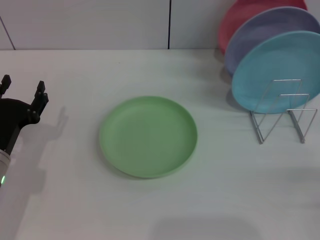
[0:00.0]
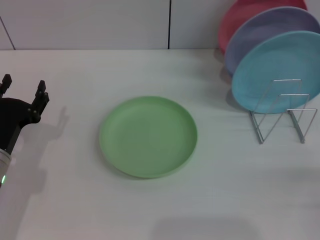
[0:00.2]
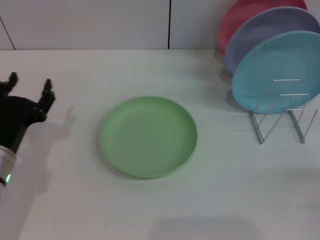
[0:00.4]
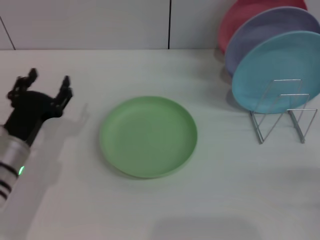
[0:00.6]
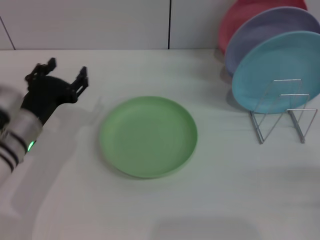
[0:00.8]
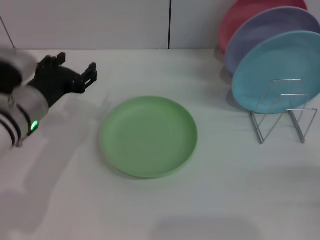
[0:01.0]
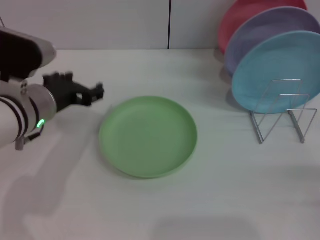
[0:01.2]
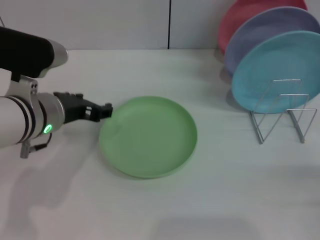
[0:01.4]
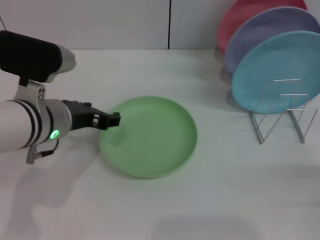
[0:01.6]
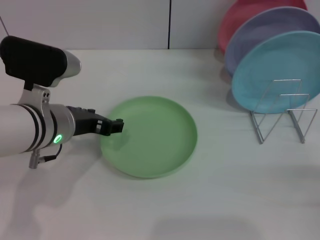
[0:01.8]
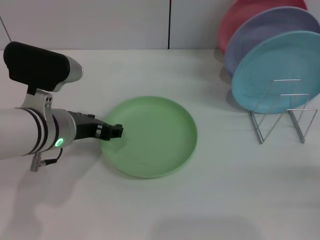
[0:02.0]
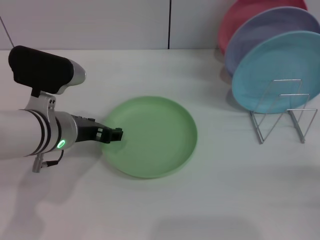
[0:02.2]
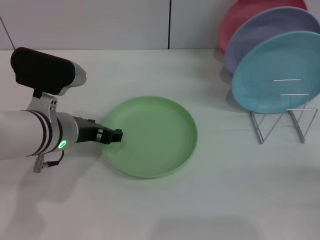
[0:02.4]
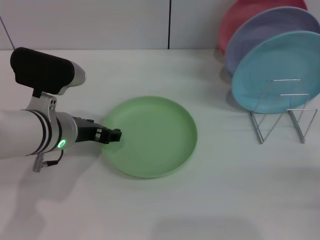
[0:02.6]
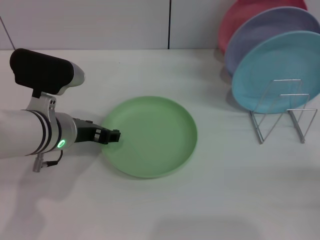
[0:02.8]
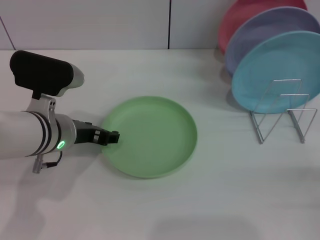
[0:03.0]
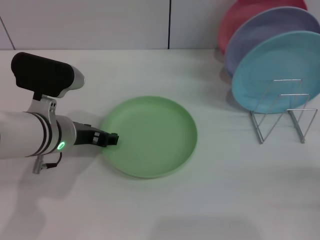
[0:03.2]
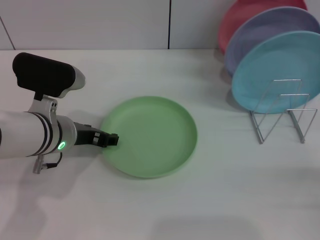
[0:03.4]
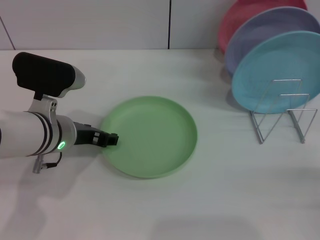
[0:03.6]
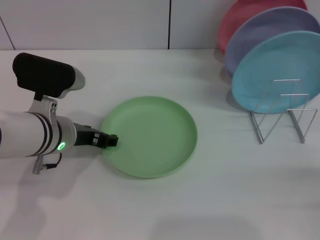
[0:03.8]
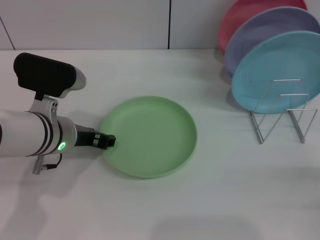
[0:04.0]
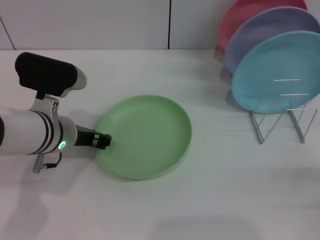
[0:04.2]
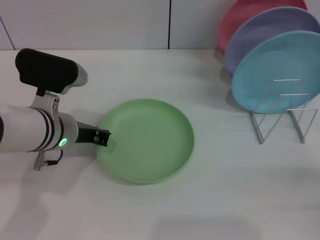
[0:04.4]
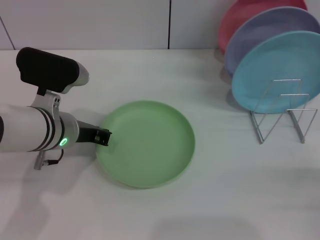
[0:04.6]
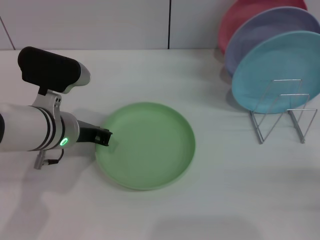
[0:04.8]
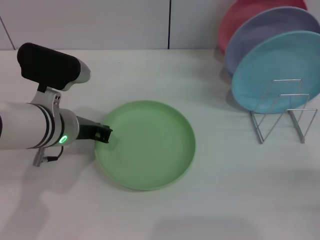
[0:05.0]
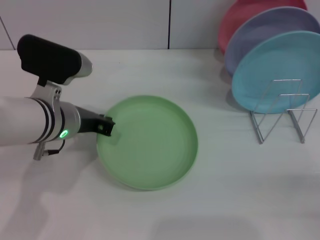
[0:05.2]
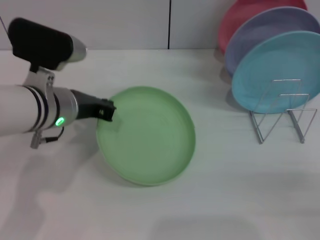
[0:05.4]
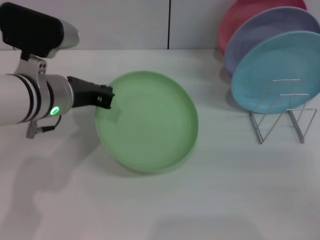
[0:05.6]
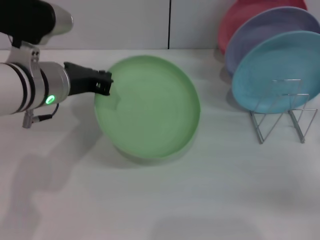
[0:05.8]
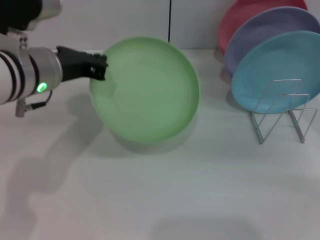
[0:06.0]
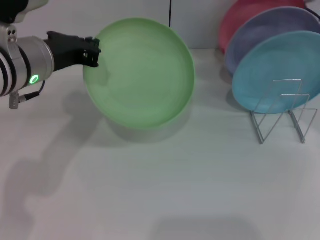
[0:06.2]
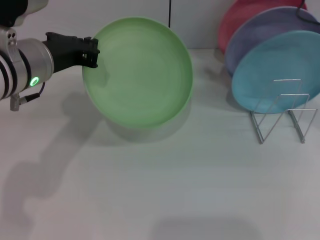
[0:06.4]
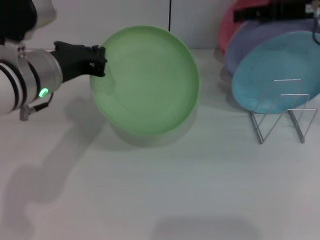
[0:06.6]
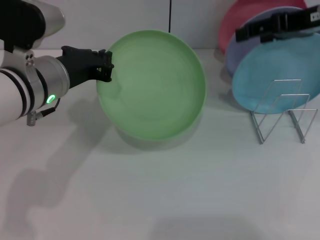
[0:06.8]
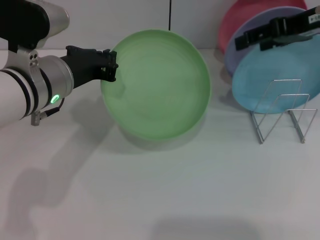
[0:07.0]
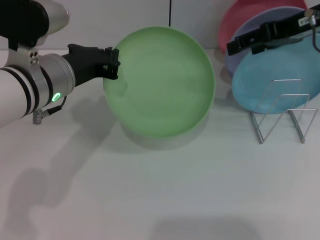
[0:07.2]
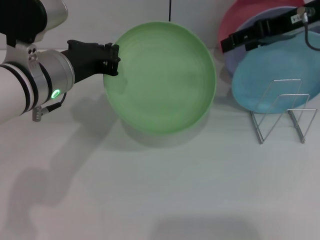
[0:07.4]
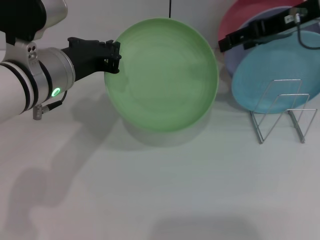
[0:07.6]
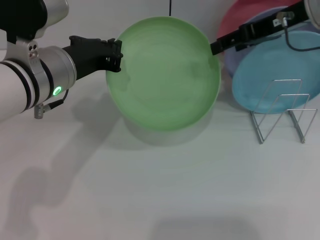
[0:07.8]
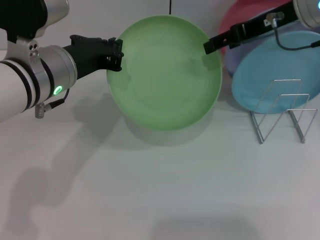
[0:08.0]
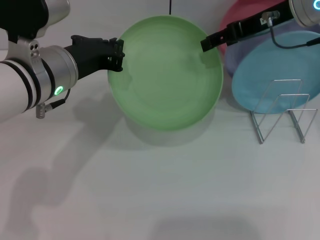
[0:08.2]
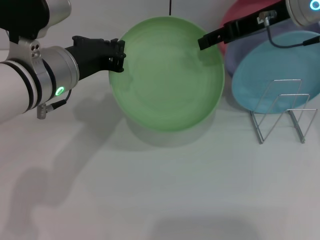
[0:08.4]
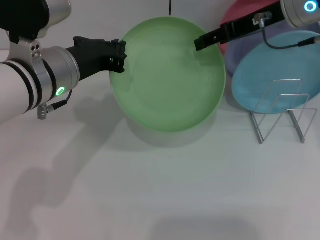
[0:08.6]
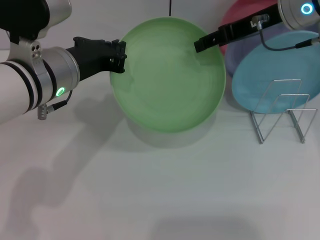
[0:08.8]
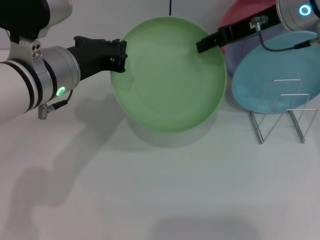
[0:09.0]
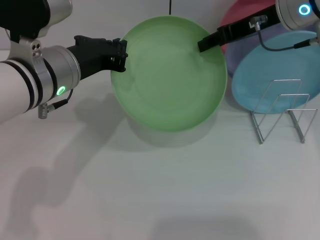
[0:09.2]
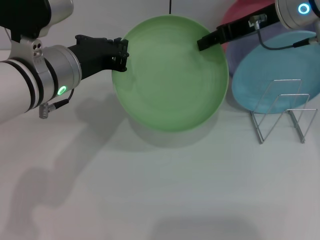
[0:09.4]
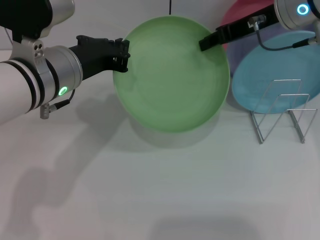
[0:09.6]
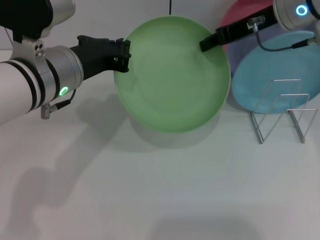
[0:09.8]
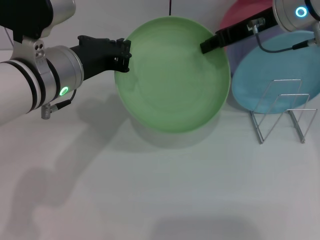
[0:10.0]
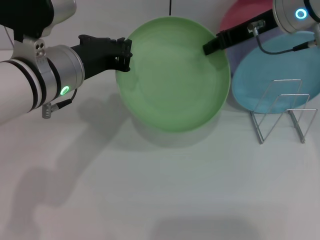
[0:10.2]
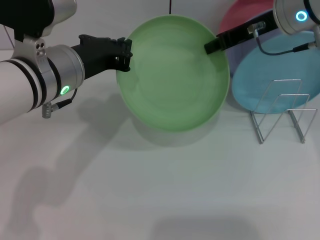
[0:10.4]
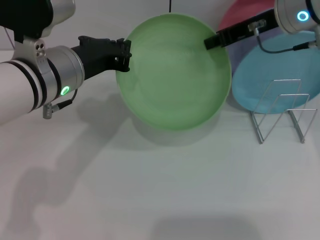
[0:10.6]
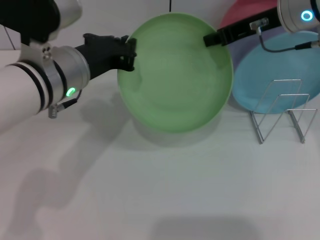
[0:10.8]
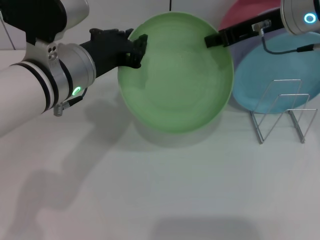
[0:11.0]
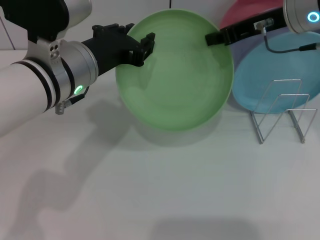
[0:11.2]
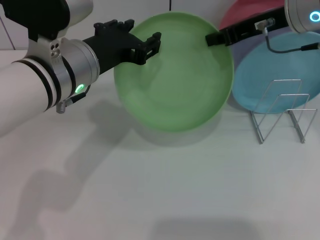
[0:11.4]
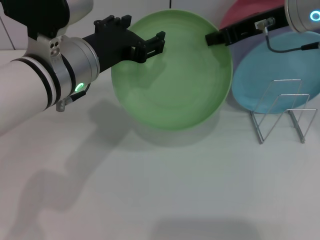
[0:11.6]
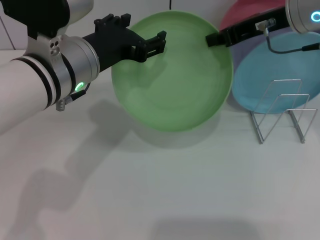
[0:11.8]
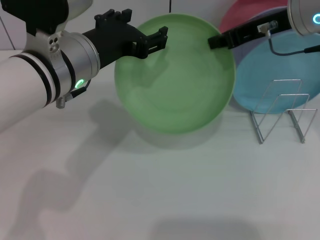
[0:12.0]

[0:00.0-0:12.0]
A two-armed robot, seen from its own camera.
Task of the whole recording: Grip the plate with one hand, pass it to the other, then set it on the shelf.
Step, 0:00.0 to 0:06.4: Pick up the plate with the left gripper.
0:00.0 to 0:01.6: The left gripper travels upward and to the right by some 15 cm.
0:01.6 to 0:03.0: There are only small adjustments of the grippers.
0:03.0 to 0:04.4: The left gripper closes up.
0:04.4 to 0:06.0: The left gripper shifts roughly 10 cm upward; the right gripper goes roughly 20 cm forward and upward.
0:06.0 to 0:07.6: The right gripper travels upward, to the left and forward by roughly 15 cm.
0:07.6 to 0:09.0: The grippers stay close to where they were, moving slightly.
0:09.0 to 0:10.4: The right gripper closes.
0:10.4 to 0:12.0: The left gripper opens up.

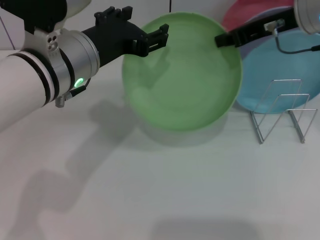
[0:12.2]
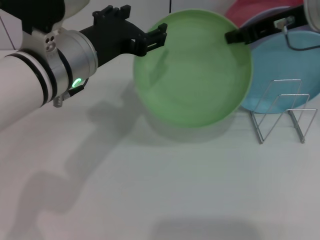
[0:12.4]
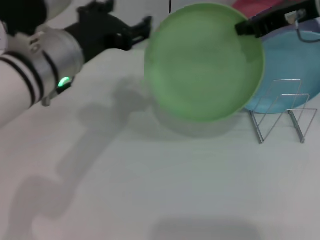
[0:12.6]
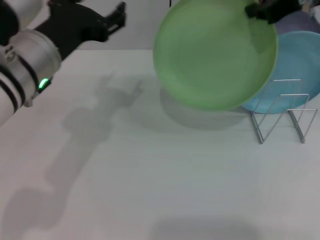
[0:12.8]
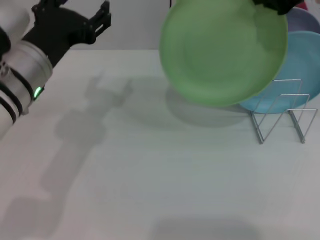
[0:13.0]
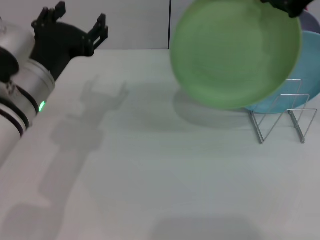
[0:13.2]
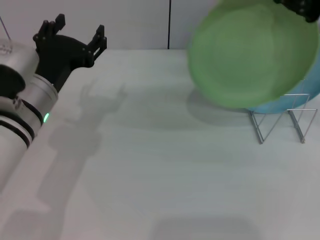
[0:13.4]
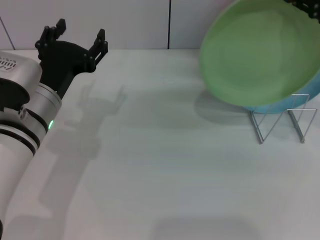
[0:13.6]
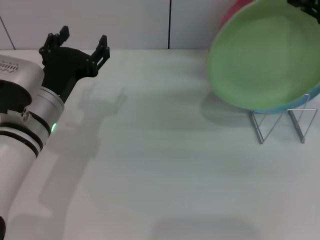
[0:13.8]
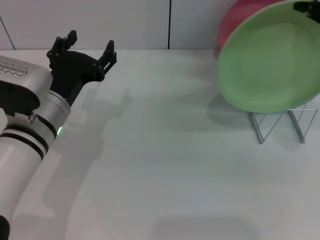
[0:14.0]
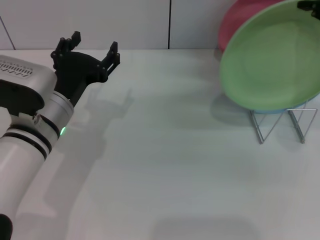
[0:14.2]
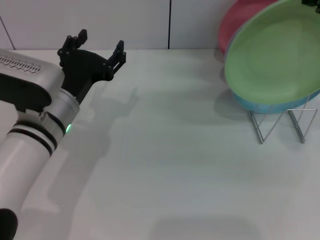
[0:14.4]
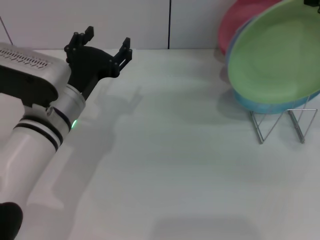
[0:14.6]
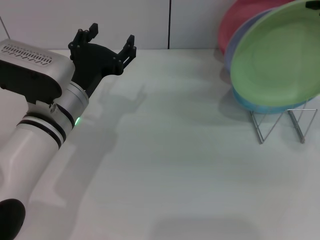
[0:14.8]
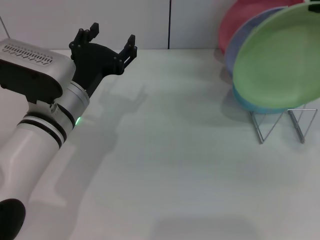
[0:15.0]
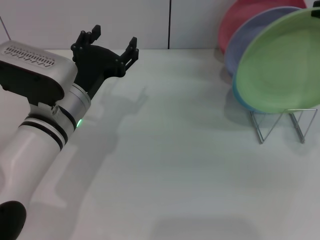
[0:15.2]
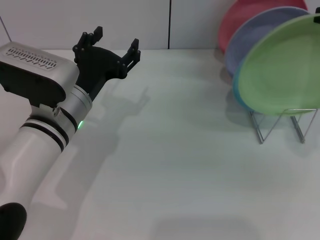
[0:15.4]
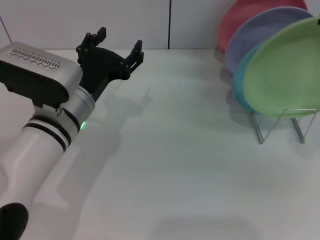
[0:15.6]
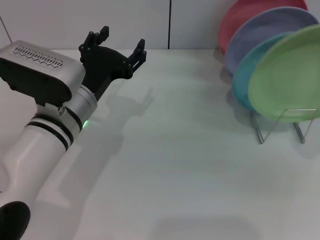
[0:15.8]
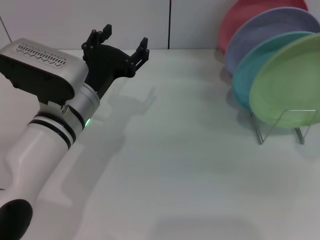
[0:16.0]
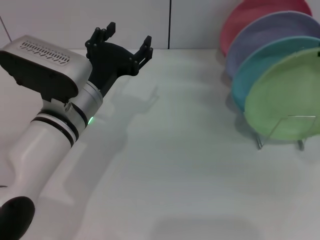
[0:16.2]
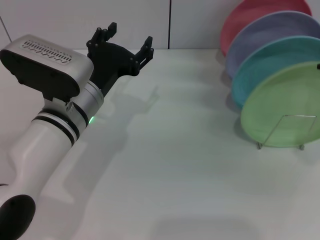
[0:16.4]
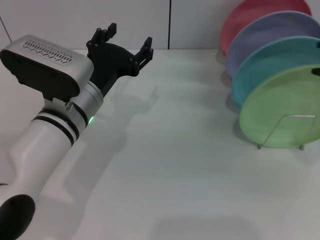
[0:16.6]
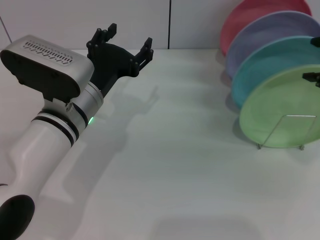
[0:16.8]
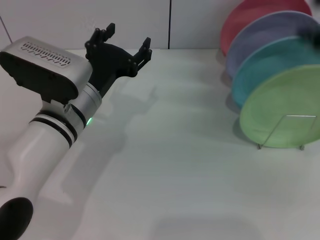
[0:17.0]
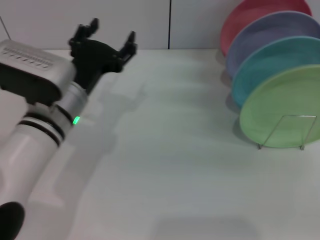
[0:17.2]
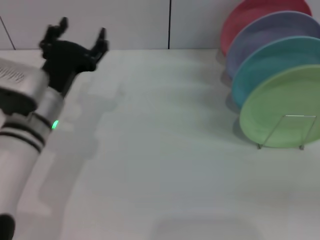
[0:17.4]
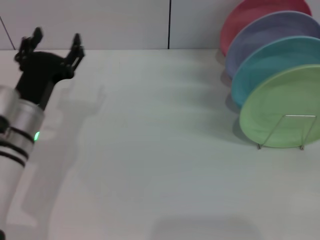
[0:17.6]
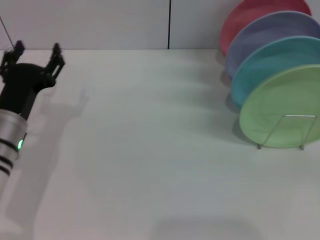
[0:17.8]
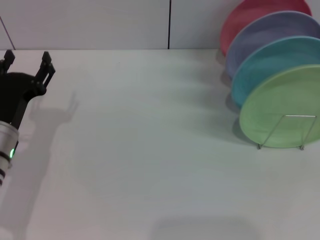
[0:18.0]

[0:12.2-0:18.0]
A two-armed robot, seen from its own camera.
Task of the whole recording: Grip the plate with one hand, pass it to the other, then set it on the shelf.
Step, 0:12.6 to 0:16.8: Place the plate on the shelf with the right gripper.
0:12.2 to 0:13.6: The right gripper goes roughly 10 cm upward and backward. The left gripper is displaced downward by some 10 cm.
0:13.6 to 0:15.0: The grippers move only a little.
0:15.0 to 0:16.6: The right gripper opens up.
0:16.6 to 0:18.0: The left gripper heads to the left and downward, covering roughly 15 cm, while the right gripper heads downward, backward and to the right, covering approximately 30 cm.

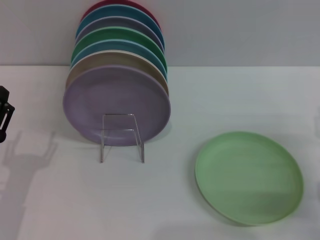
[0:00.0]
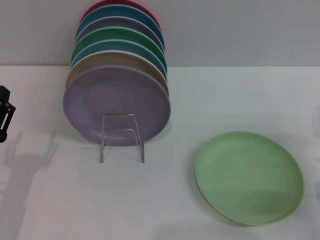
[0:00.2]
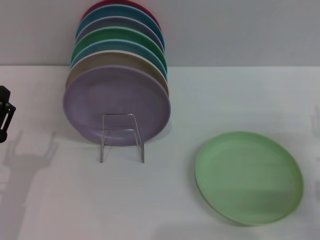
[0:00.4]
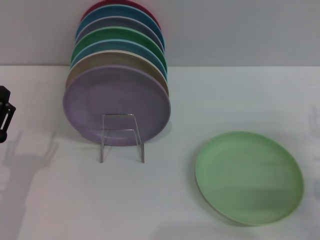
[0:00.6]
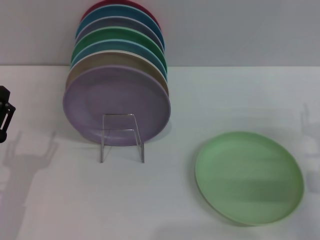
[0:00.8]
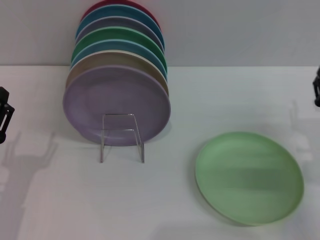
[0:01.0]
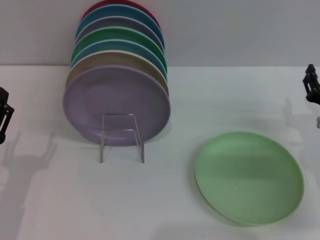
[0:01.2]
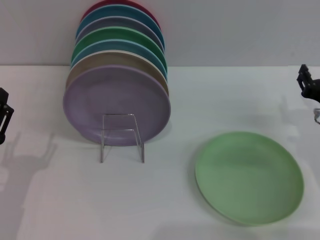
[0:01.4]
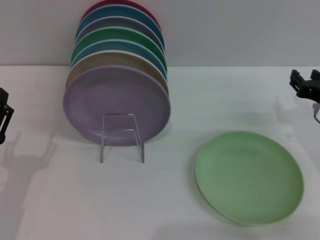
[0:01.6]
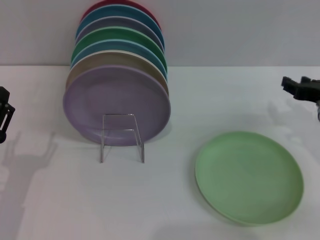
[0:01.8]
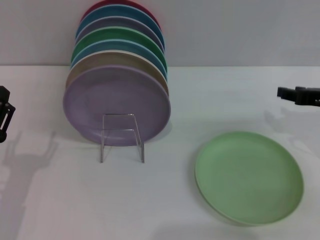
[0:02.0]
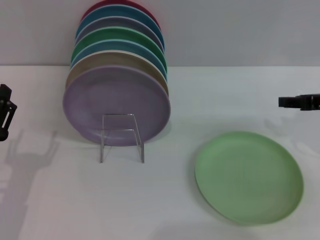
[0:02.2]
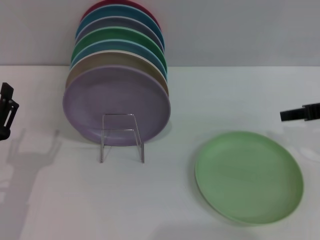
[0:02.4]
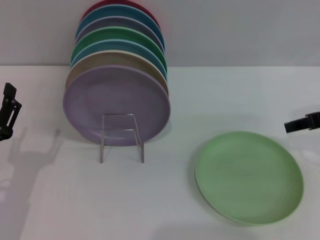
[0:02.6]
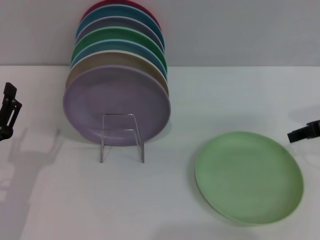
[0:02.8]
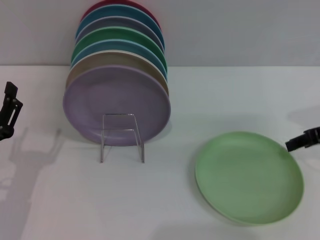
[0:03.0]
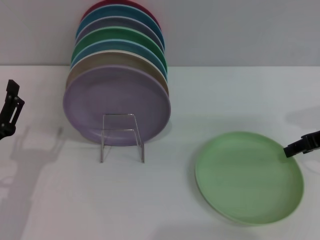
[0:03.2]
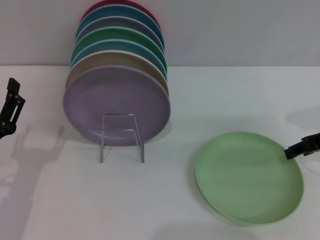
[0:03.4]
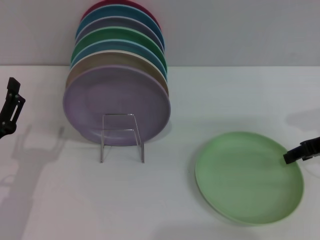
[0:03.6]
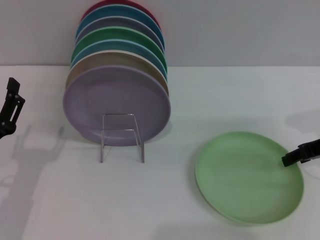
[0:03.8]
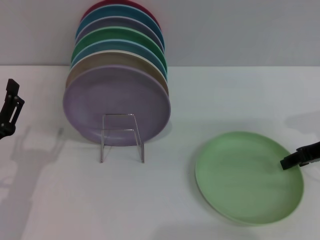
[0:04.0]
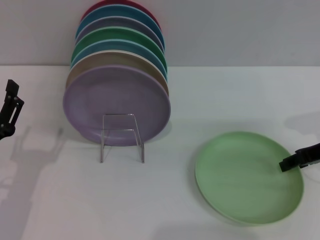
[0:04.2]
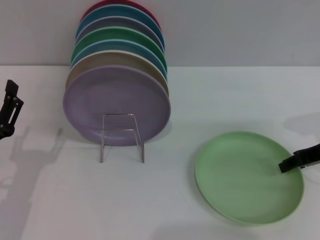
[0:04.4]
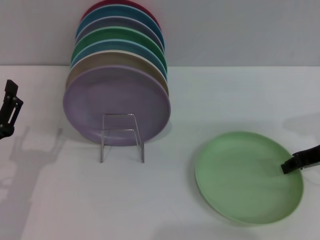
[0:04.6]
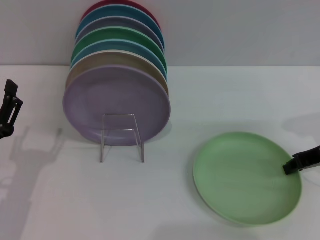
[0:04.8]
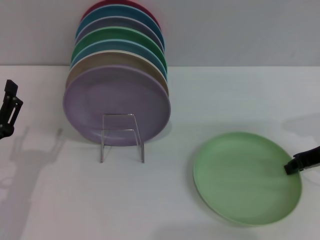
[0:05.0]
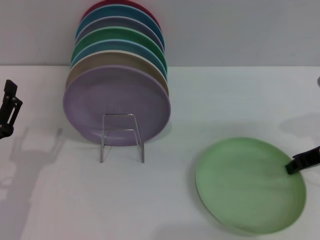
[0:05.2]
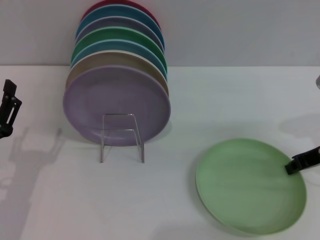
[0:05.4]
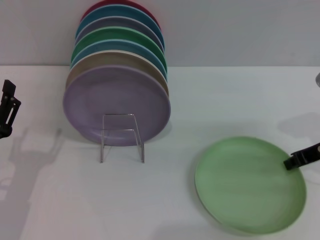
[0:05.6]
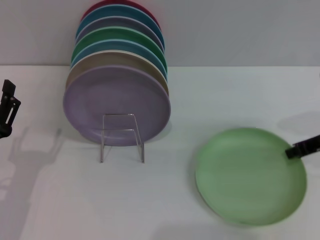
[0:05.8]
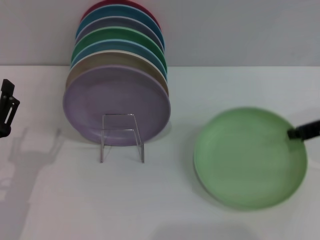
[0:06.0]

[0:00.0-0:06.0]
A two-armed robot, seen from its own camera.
Task of the whole recording: Grip the plate with one hand, pass it to the other, then set it on the shelf.
0:00.0 to 0:01.6: The right gripper moves forward and upward, roughly 10 cm.
0:01.6 to 0:03.0: The right gripper is displaced upward by approximately 5 cm.
0:03.0 to 0:04.4: The grippers make only small movements.
0:04.4 to 0:06.0: The right gripper closes its fingers.
